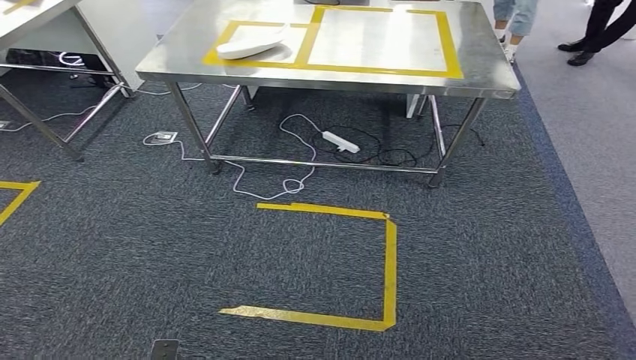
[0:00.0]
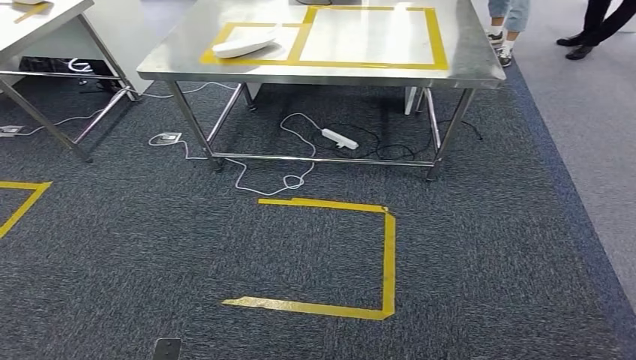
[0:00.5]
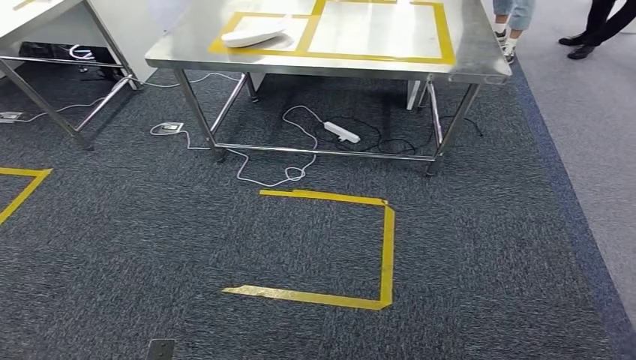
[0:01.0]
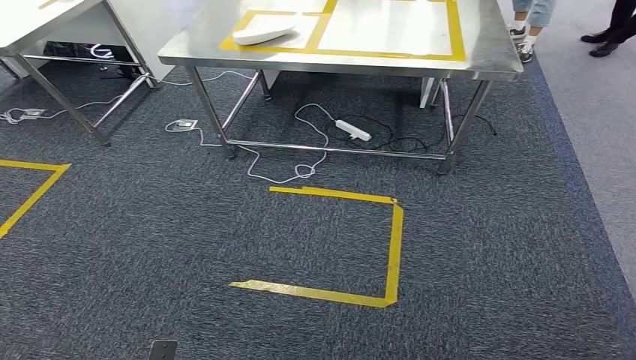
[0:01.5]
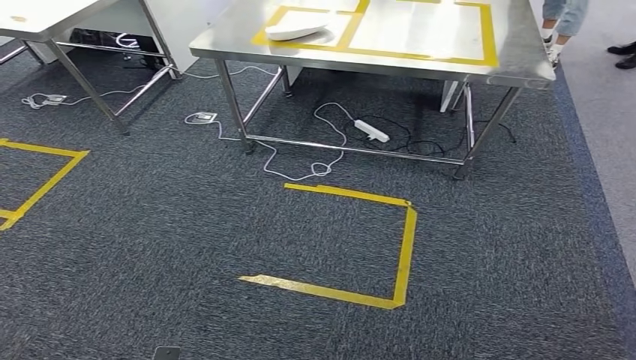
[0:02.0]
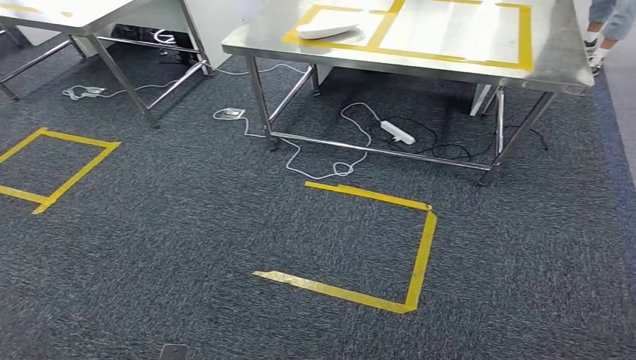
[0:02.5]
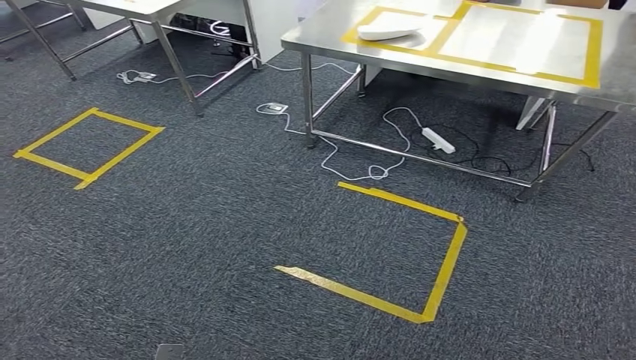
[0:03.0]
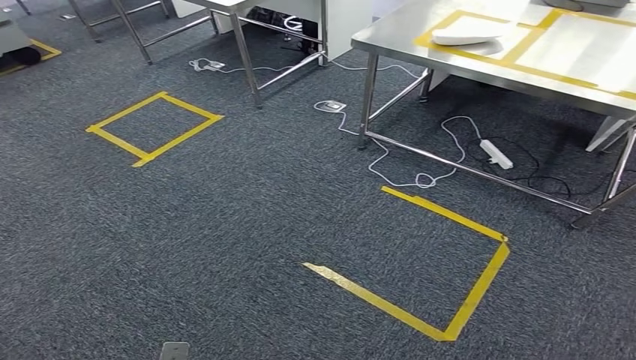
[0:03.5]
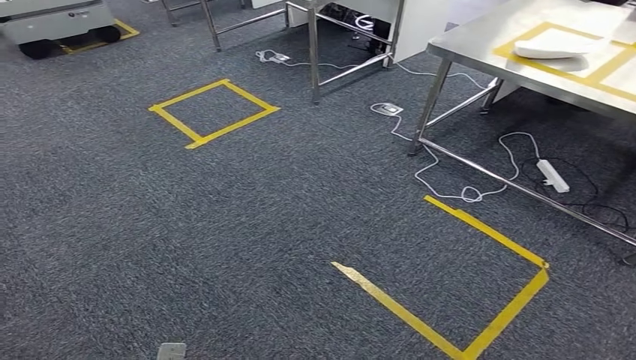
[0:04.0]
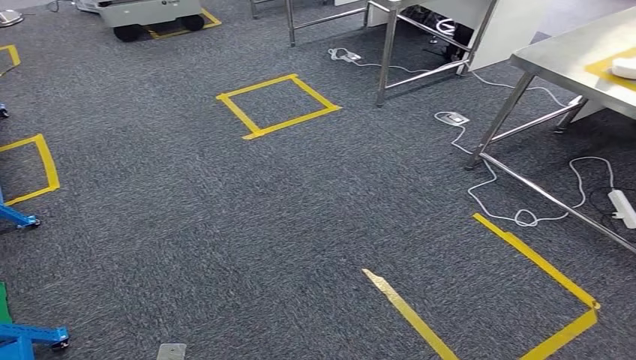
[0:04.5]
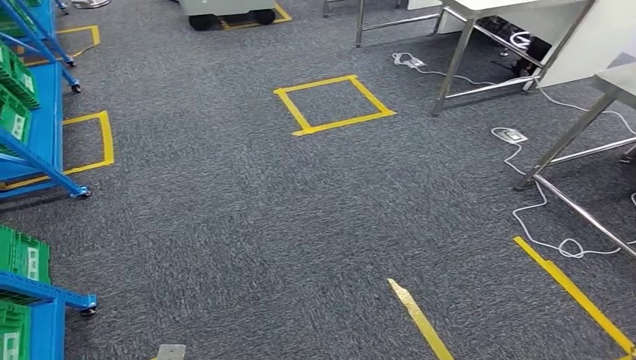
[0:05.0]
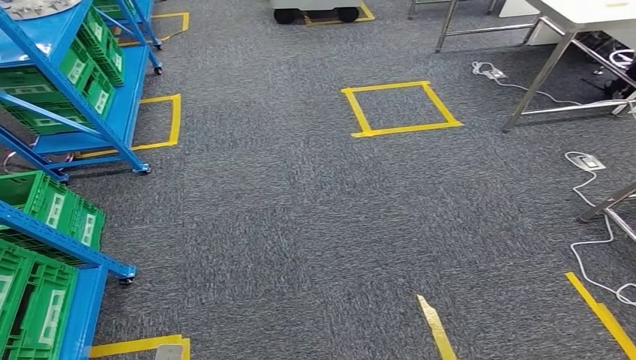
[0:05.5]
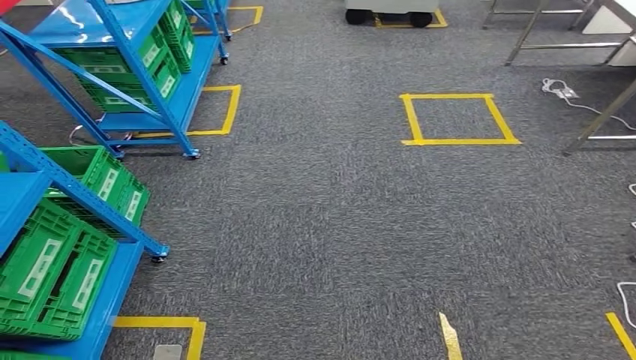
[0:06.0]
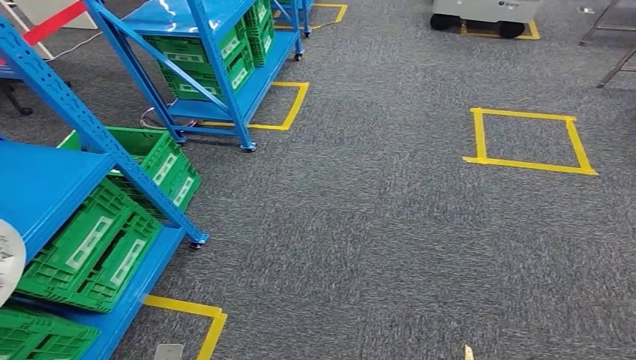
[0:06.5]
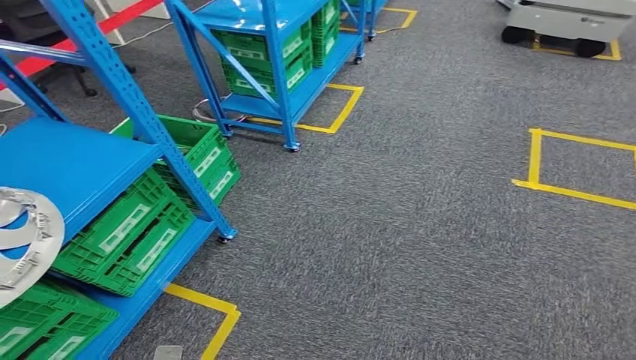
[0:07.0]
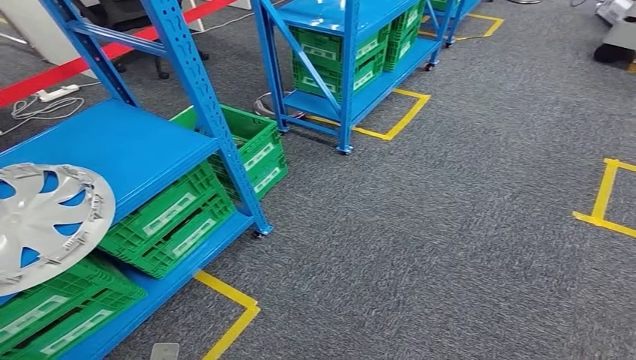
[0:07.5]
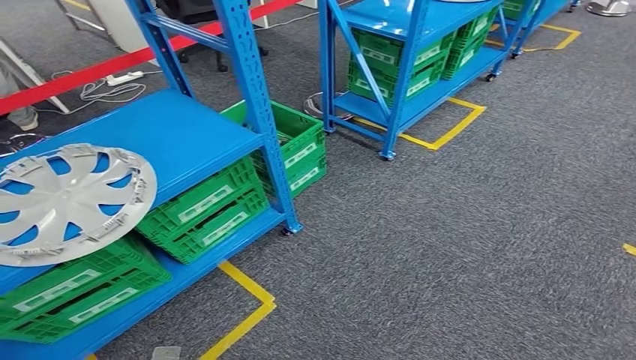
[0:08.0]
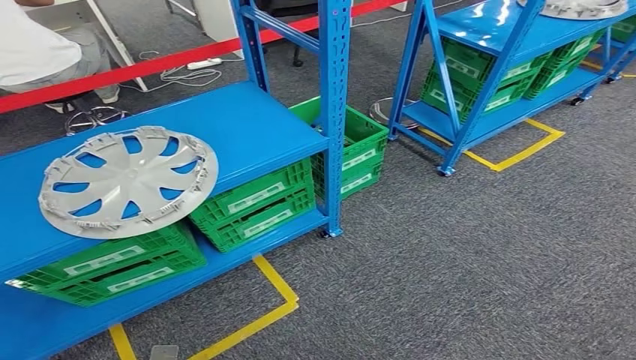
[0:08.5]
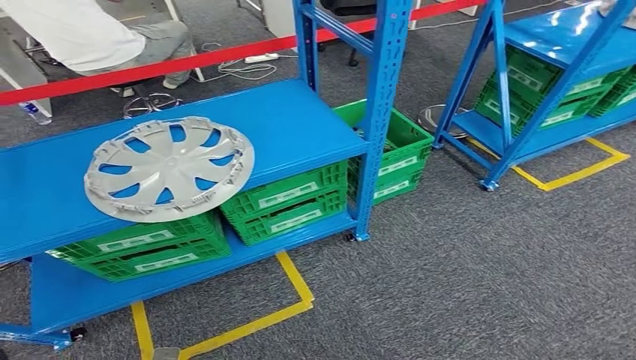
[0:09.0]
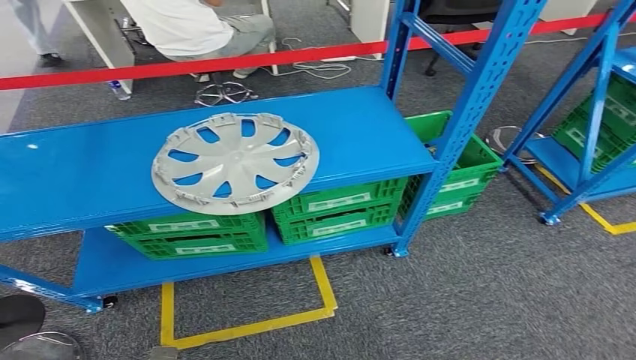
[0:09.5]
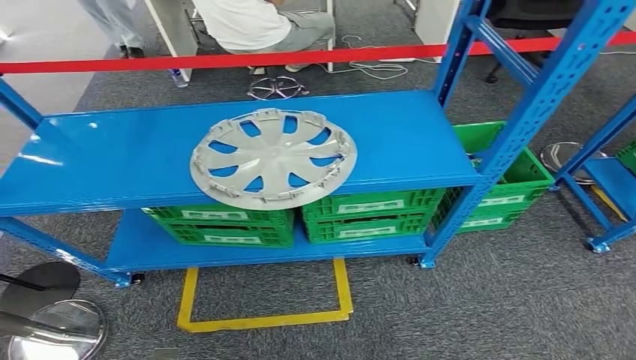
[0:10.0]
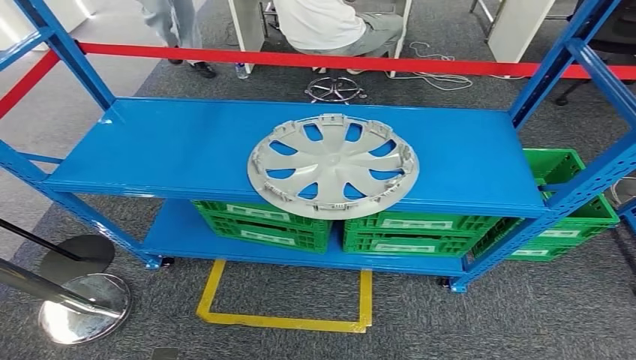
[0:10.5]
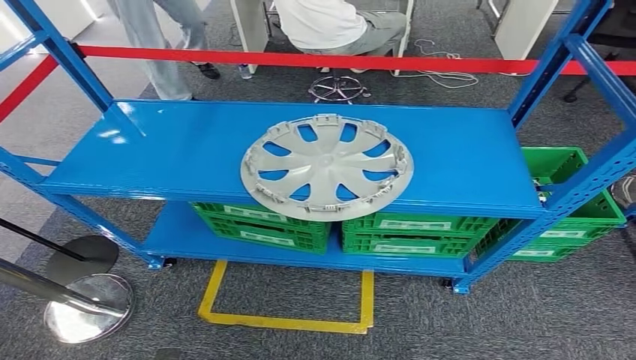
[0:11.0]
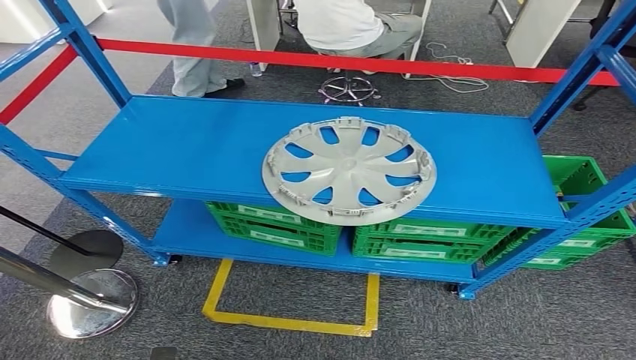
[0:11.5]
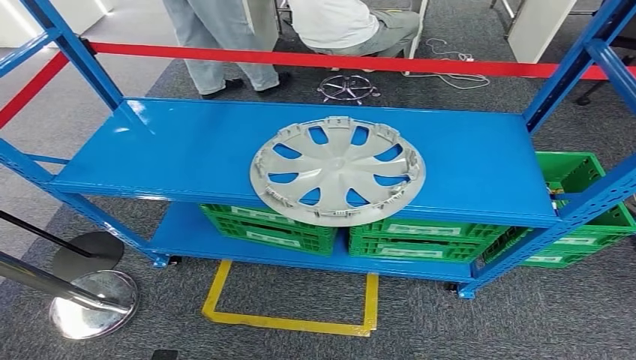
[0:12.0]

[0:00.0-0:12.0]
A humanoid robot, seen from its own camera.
Step, 0:00.0 to 0:12.0: Move to the initial position of the workbench.
